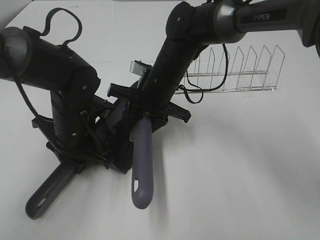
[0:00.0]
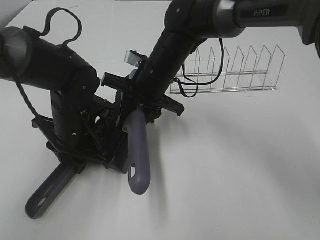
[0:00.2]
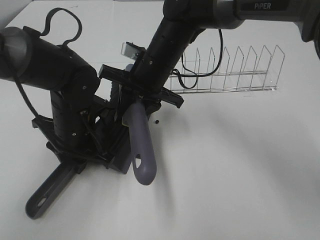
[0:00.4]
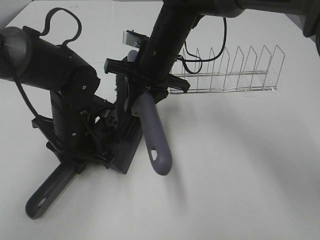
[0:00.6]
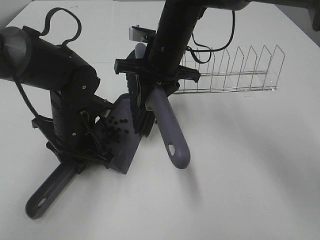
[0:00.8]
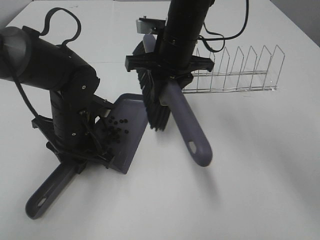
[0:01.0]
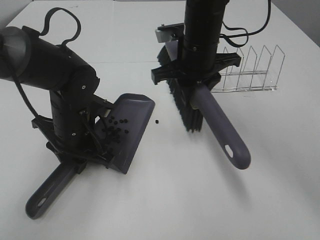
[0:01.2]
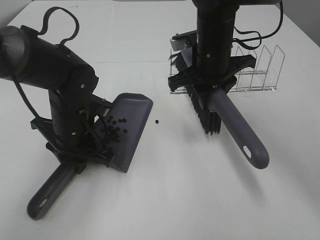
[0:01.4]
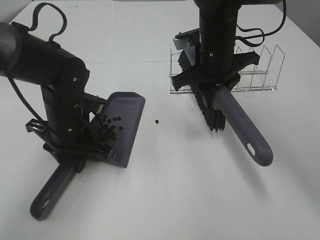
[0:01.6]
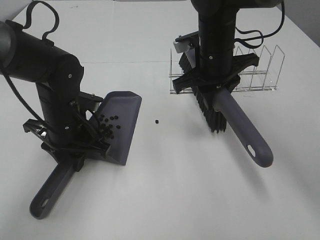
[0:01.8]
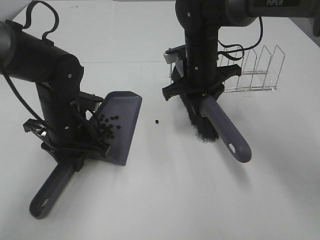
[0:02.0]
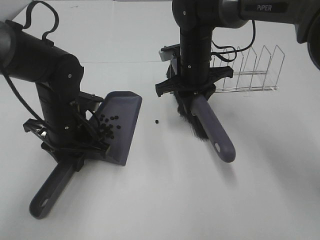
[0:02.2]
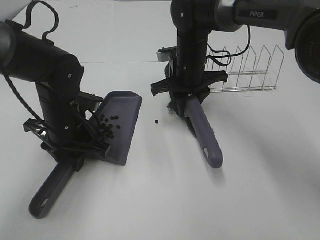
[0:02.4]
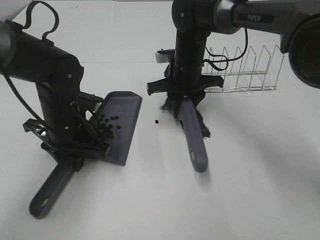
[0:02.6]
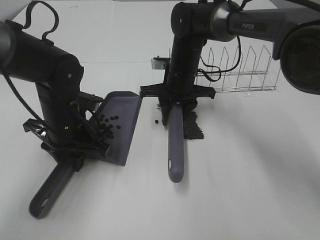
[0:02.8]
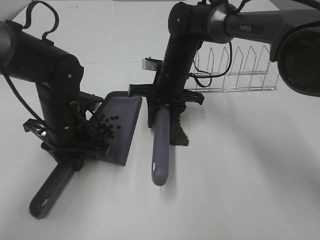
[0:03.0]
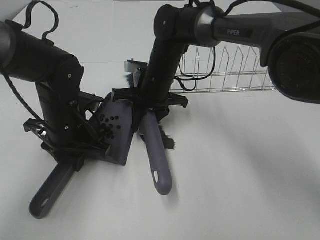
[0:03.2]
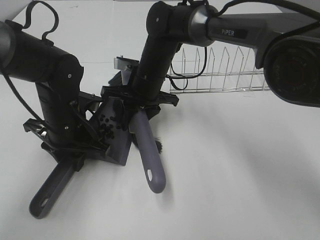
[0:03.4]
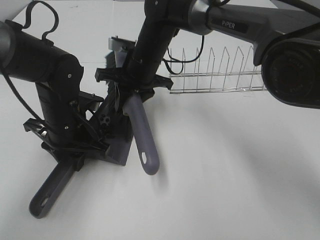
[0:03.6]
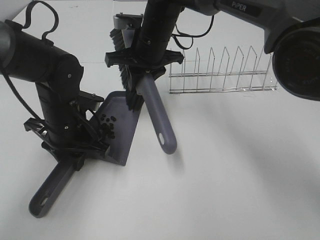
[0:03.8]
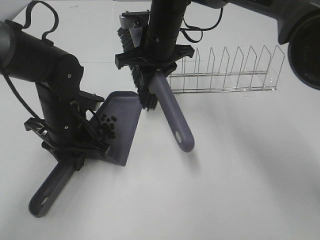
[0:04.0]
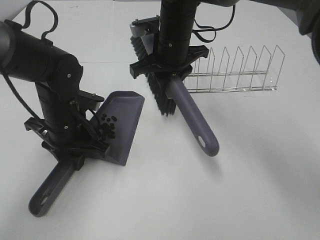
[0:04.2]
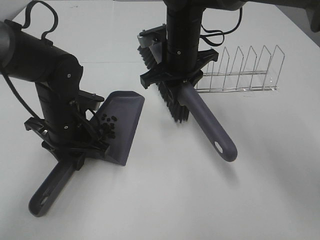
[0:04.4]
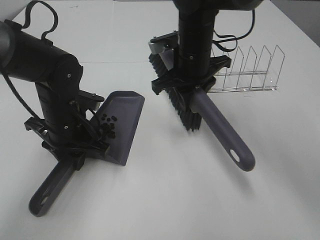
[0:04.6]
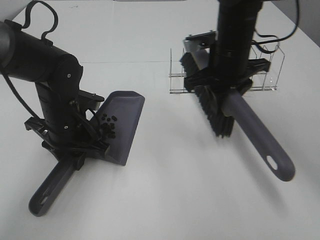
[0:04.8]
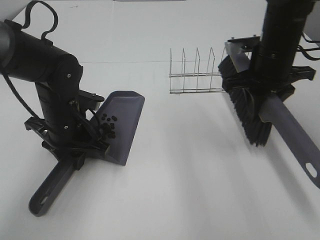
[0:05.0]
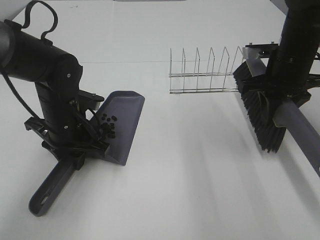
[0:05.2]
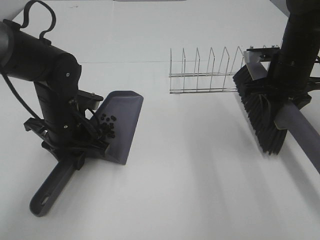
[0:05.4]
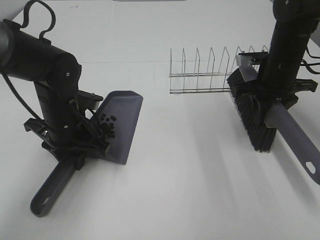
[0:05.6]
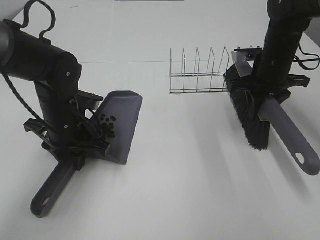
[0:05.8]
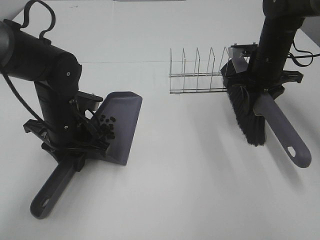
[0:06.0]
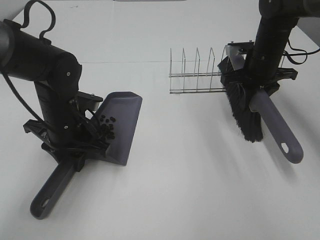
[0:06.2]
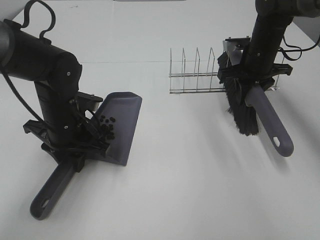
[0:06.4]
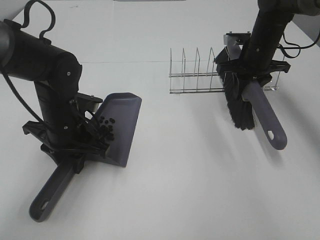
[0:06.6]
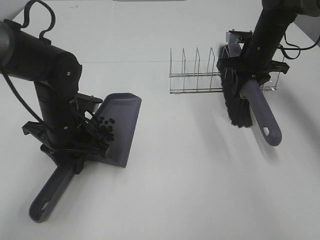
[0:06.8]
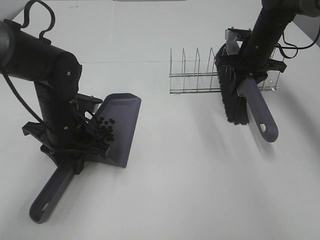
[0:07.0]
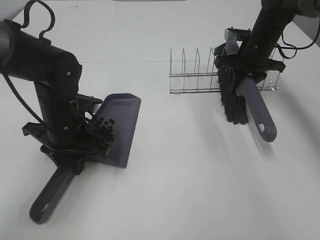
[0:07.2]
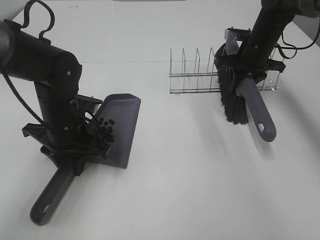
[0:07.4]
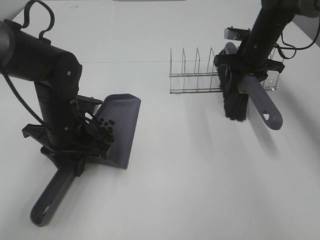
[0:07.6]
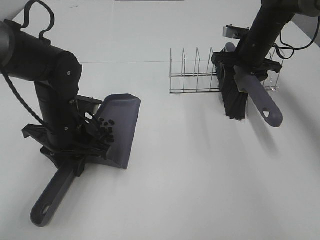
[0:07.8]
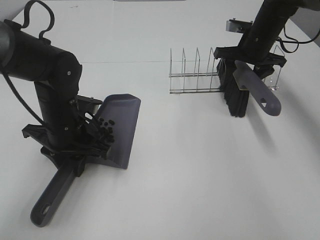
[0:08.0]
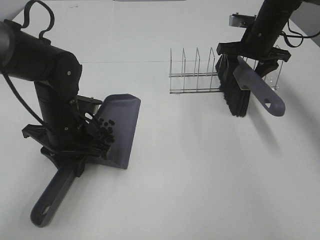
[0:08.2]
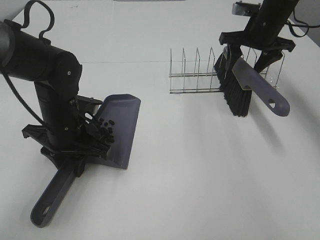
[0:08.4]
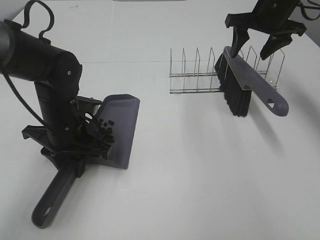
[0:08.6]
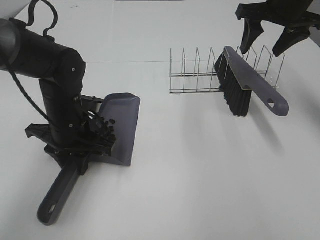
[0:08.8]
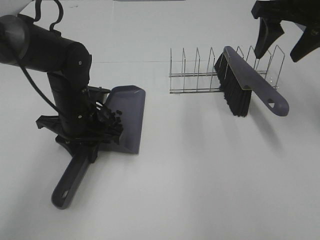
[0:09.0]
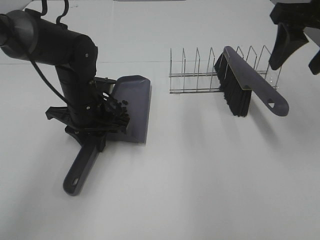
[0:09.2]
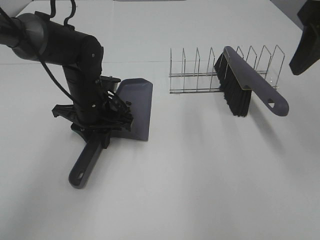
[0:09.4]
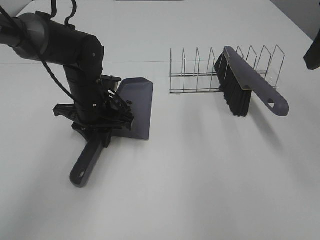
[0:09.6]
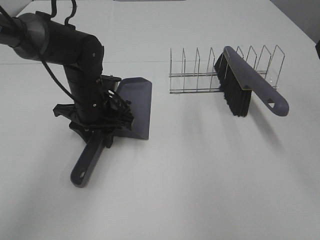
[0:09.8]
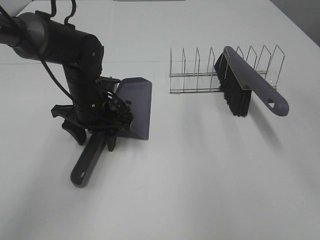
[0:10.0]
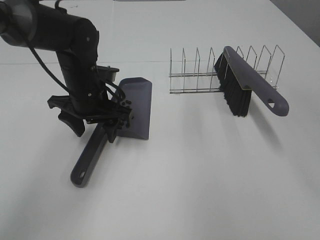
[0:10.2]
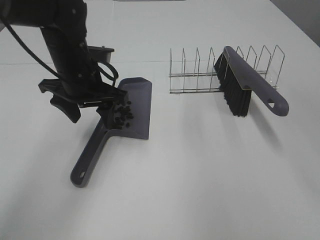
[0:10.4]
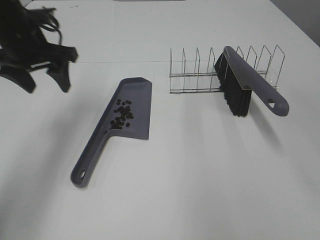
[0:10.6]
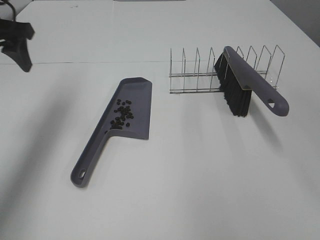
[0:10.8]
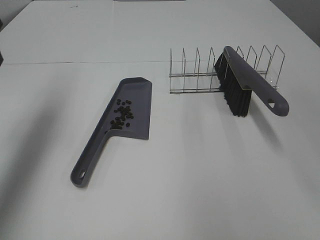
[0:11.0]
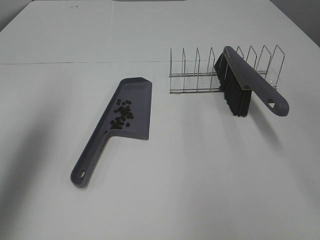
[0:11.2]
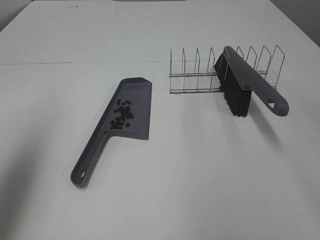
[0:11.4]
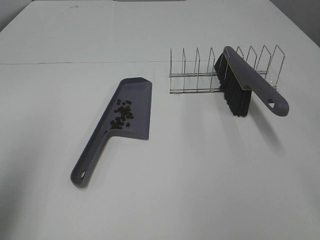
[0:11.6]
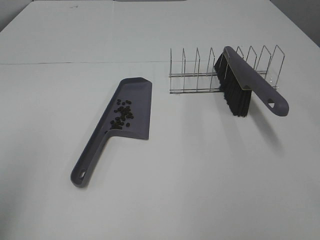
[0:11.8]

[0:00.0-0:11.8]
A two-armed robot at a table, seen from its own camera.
Task of the whole recording: Sweep Coffee Bean.
Step, 0:00.0 to 0:03.6: Right hand:sweep the coffee beans into the dustpan.
Step, 0:03.8 to 0:08.0: Right hand:place the broom on the rack.
Step, 0:08.2 to 0:09.8: Left hand:place the dustpan on the table.
0:00.0 to 0:01.4: The right gripper travels to the right and upward by about 10 cm.
0:01.4 to 0:03.0: The right gripper moves downward and to the left, roughly 10 cm.
0:03.0 to 0:04.4: The right gripper heads upward, covering roughly 10 cm.
0:04.4 to 0:06.0: The right gripper shifts approximately 20 cm to the right.
0:06.0 to 0:07.4: The right gripper moves forward, about 5 cm.
0:07.4 to 0:08.8: The right gripper travels upward and backward by about 15 cm, and opens.
0:08.8 to 0:10.4: The right gripper travels backward and upward by roughly 25 cm. Meanwhile the left gripper travels upward by about 10 cm, and opens up.
0:10.4 to 0:11.8: The left gripper moves backward, to the left and upward, approximately 35 cm, while the right gripper moves backward, approximately 15 cm.

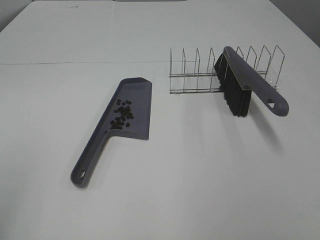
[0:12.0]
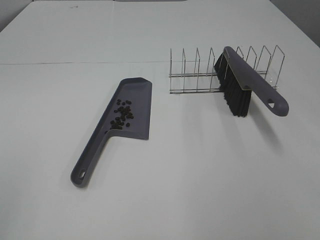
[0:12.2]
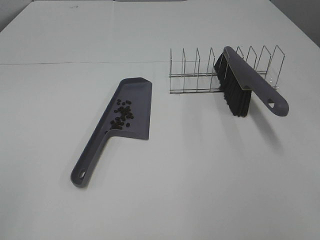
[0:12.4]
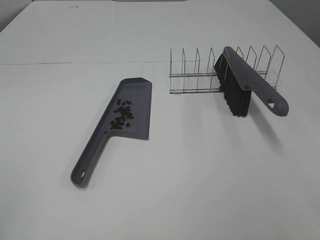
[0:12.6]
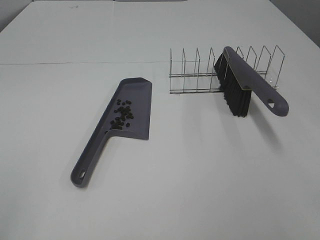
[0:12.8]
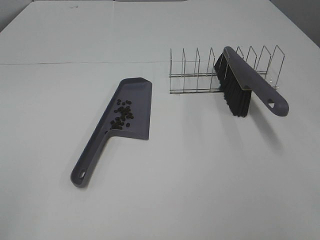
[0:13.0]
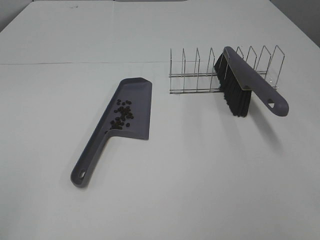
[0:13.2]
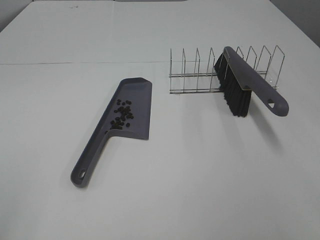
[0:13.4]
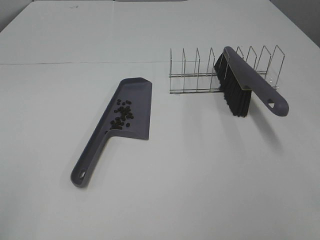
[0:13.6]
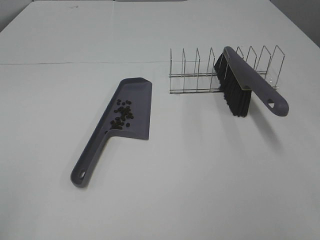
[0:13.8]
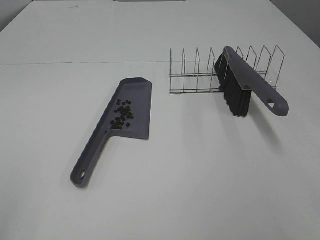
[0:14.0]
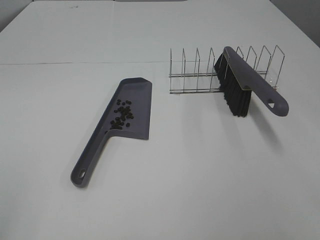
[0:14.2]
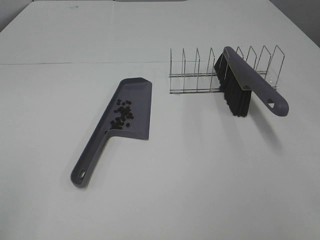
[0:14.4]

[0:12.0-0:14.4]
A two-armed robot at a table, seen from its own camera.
Task of the whole recording: Sweep Coffee Bean.
0:13.2 to 0:14.4: Both grippers stay put.

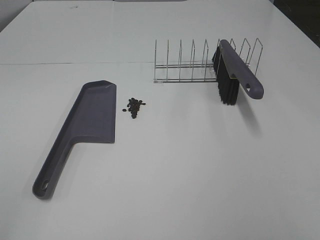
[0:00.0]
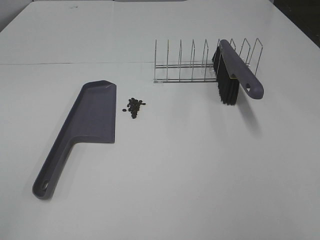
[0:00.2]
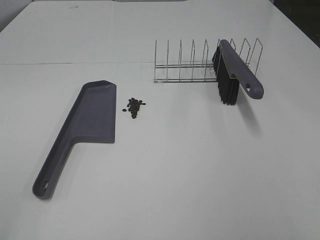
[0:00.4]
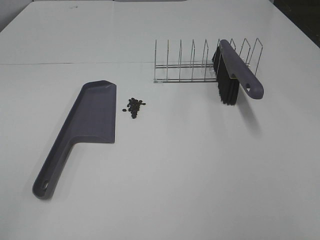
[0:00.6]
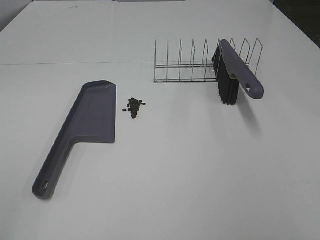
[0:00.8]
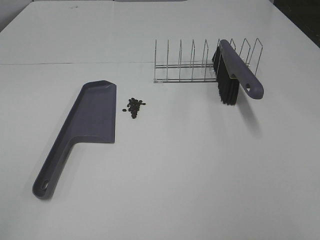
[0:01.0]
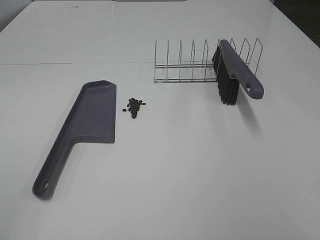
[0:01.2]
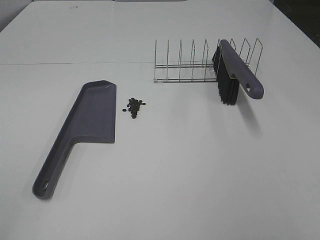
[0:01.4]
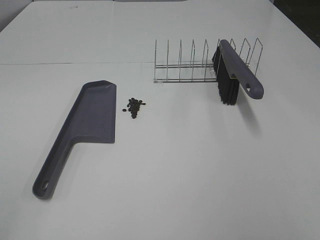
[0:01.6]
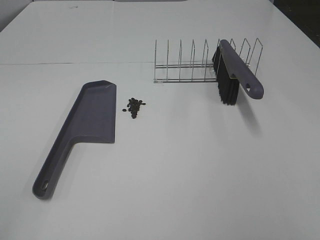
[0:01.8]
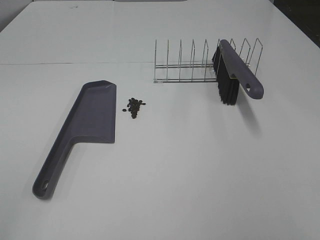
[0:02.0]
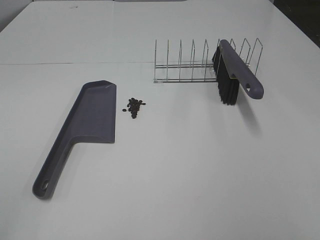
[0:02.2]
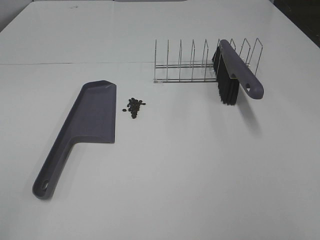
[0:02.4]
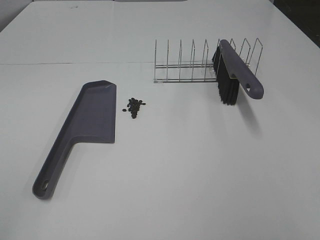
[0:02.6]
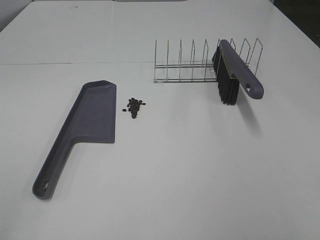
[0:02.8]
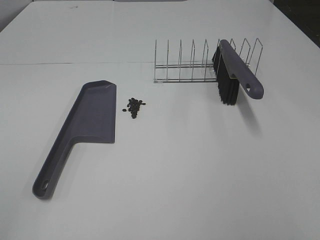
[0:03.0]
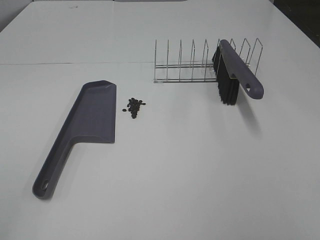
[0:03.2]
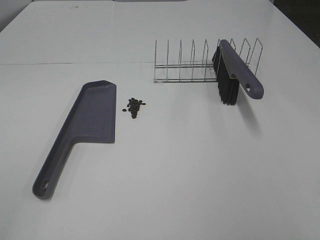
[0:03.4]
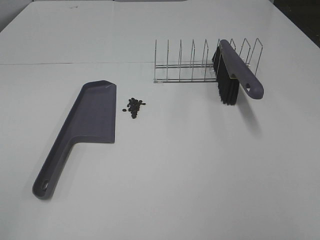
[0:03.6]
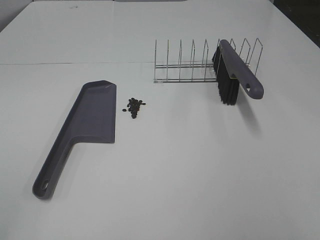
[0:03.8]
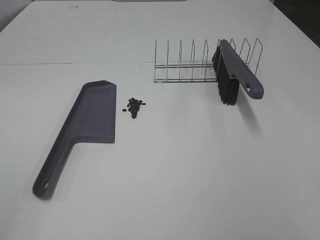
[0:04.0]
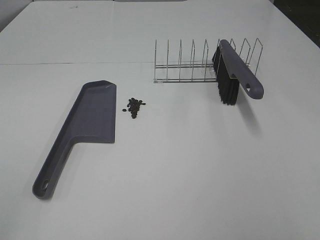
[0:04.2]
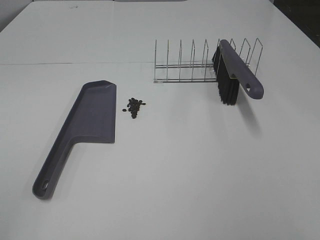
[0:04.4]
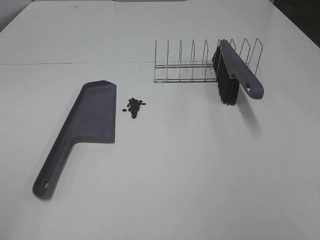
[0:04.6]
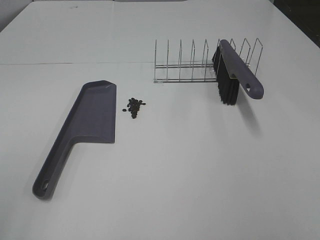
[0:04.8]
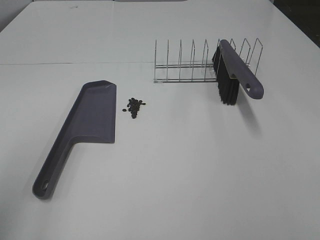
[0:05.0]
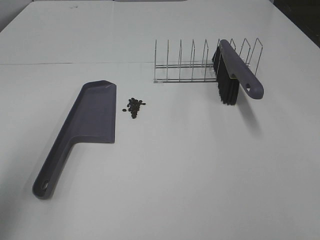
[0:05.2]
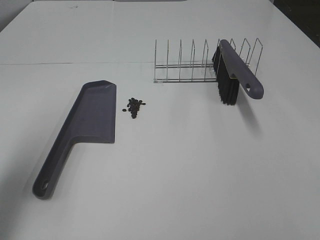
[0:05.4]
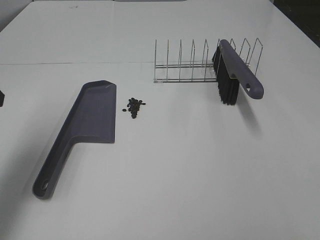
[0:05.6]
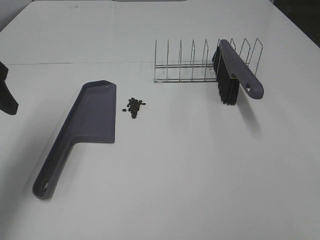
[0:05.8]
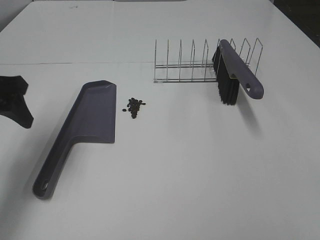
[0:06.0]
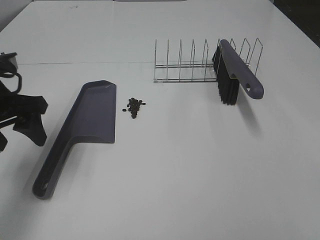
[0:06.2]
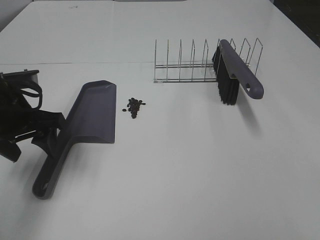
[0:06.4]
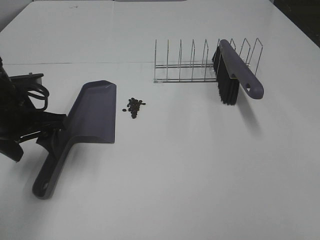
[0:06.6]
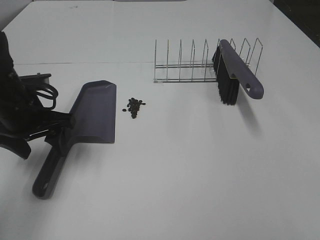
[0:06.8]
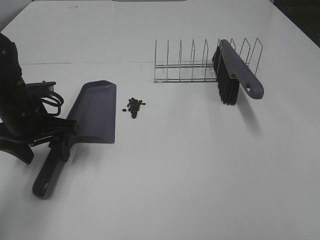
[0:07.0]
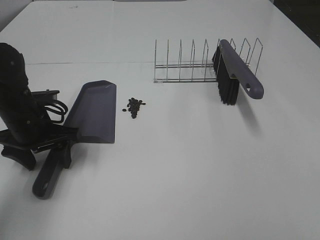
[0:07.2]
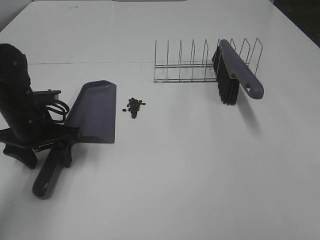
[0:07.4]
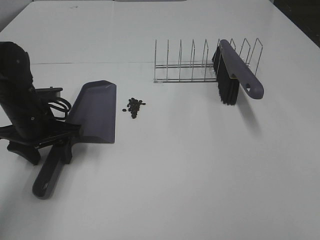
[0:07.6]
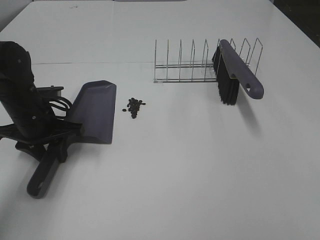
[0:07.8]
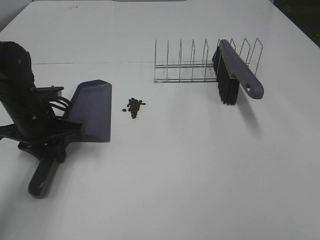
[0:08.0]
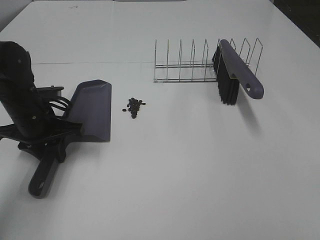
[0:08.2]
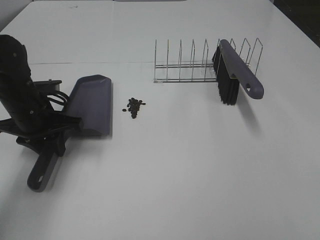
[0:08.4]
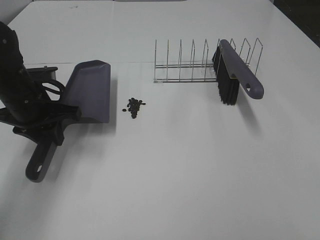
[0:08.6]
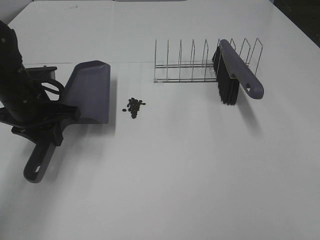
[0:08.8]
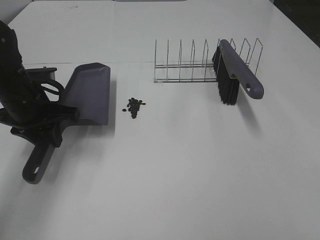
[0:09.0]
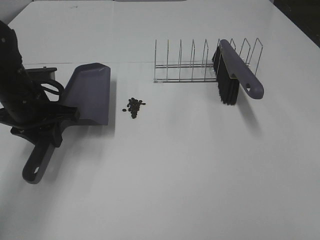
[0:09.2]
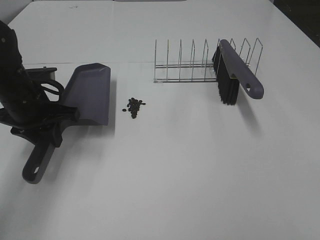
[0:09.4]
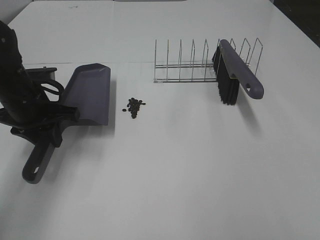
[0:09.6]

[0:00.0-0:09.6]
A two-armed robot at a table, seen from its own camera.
Task of the whole recording: Sweep Coffee Bean.
Step, 0:00.0 to 0:07.8: Left hand: grab the dustpan.
0:00.0 to 0:03.2: The two grippers keep their place.
0:04.8 to 0:06.4: The left gripper shifts roughly 30 cm forward and downward.
0:06.4 to 0:08.0: The left gripper moves downward, approximately 5 cm, and closes.
0:08.0 to 0:09.6: The grippers stay close to where they were, moving slightly.
